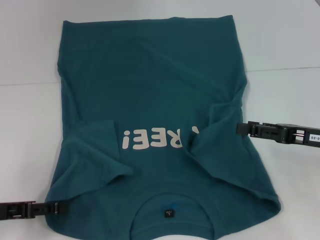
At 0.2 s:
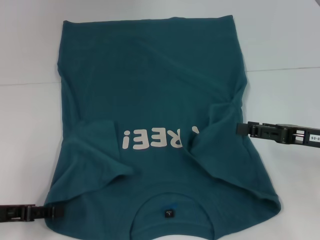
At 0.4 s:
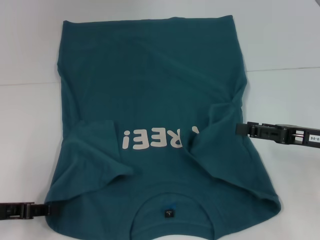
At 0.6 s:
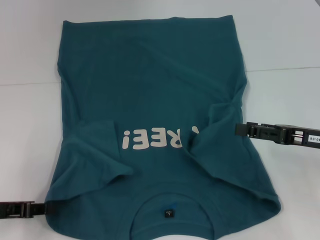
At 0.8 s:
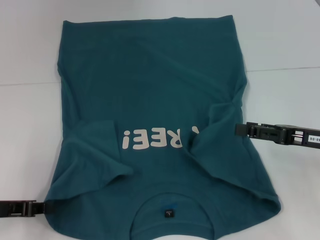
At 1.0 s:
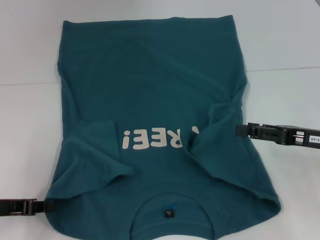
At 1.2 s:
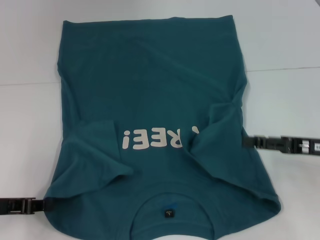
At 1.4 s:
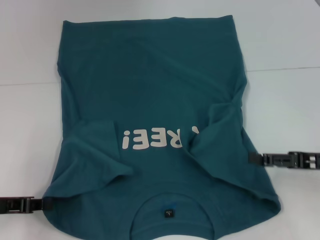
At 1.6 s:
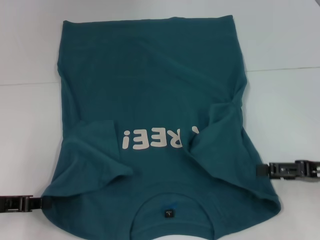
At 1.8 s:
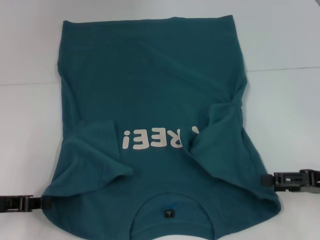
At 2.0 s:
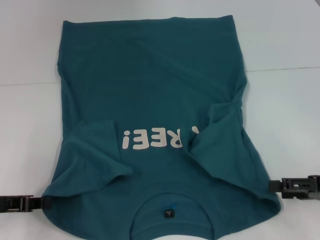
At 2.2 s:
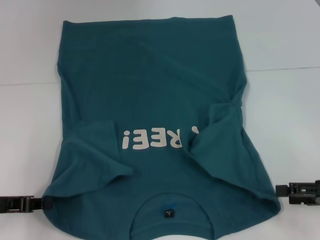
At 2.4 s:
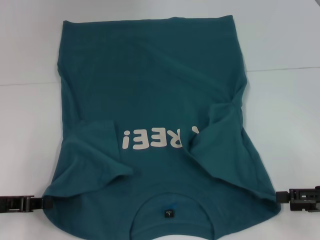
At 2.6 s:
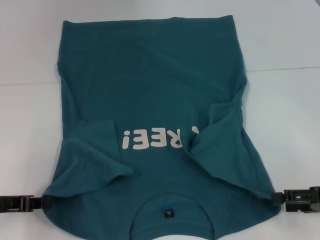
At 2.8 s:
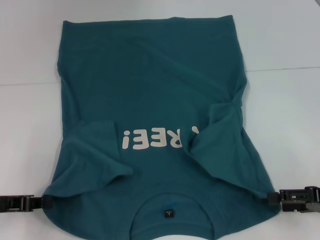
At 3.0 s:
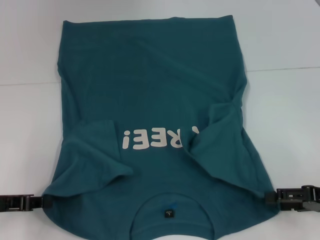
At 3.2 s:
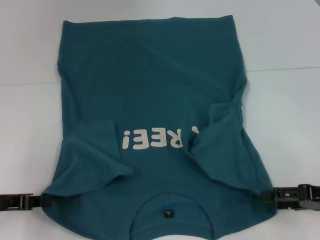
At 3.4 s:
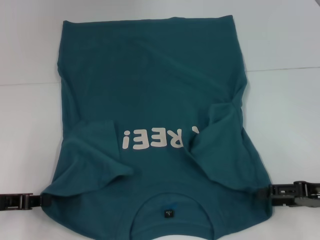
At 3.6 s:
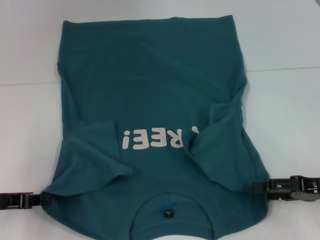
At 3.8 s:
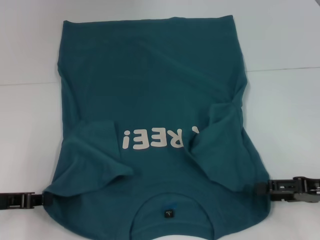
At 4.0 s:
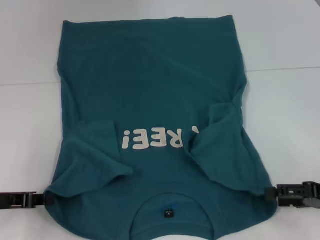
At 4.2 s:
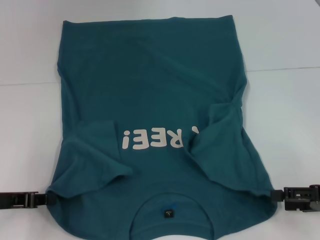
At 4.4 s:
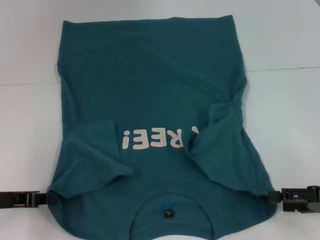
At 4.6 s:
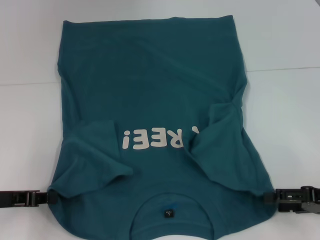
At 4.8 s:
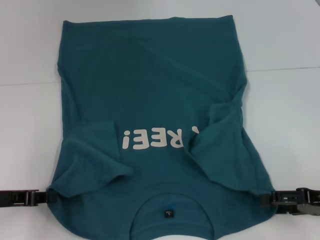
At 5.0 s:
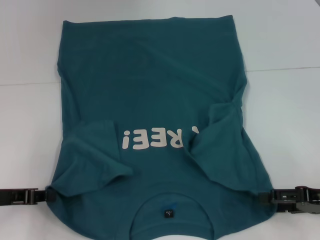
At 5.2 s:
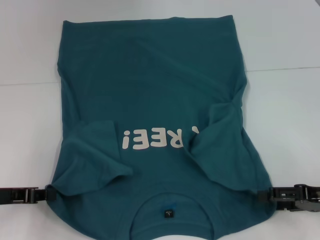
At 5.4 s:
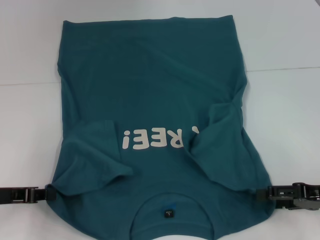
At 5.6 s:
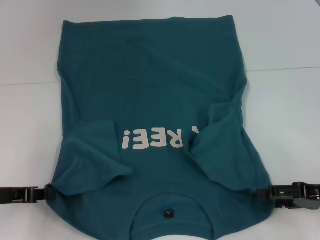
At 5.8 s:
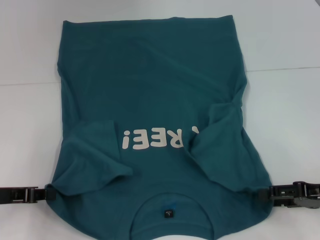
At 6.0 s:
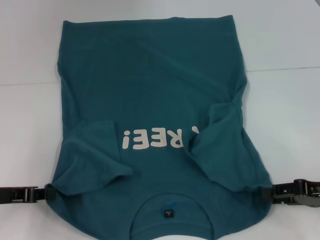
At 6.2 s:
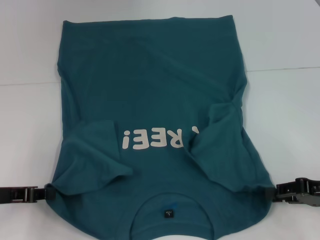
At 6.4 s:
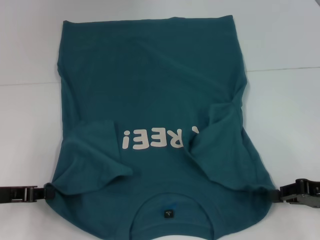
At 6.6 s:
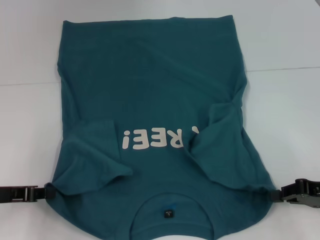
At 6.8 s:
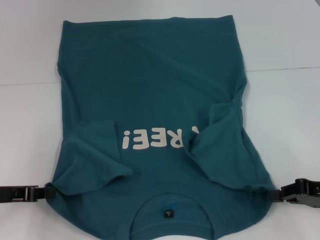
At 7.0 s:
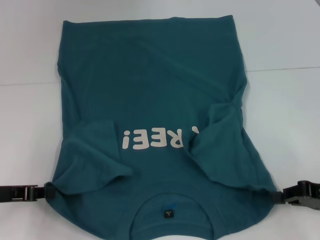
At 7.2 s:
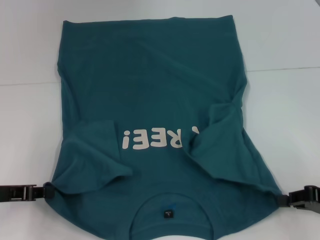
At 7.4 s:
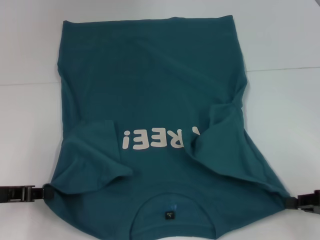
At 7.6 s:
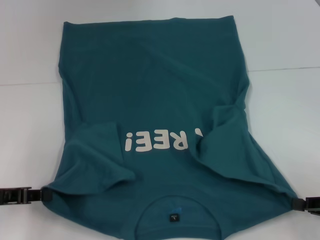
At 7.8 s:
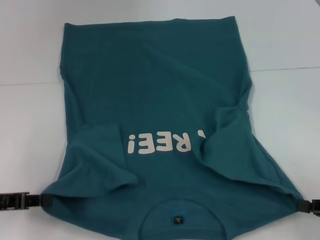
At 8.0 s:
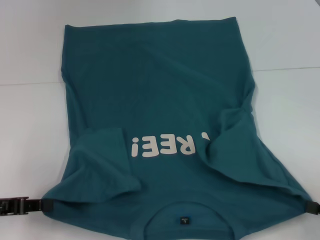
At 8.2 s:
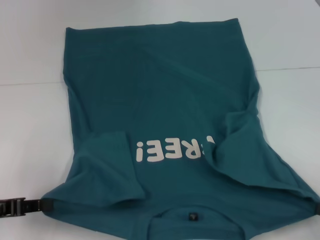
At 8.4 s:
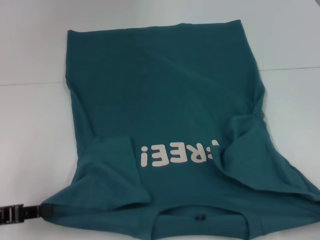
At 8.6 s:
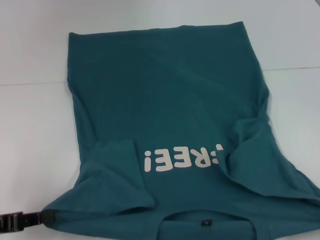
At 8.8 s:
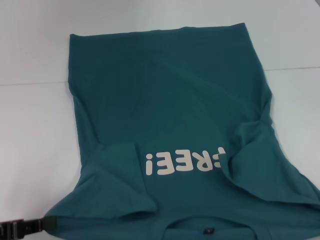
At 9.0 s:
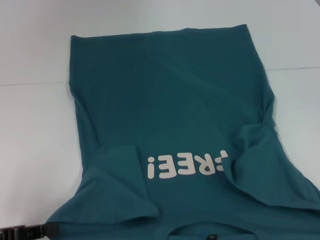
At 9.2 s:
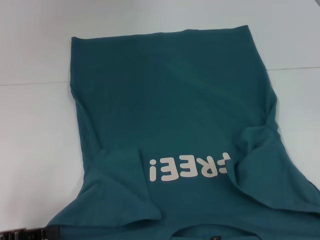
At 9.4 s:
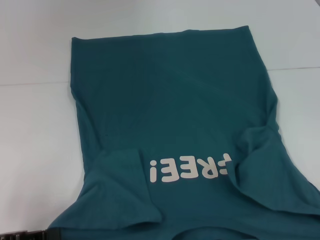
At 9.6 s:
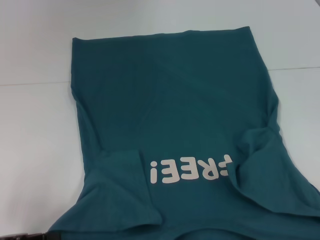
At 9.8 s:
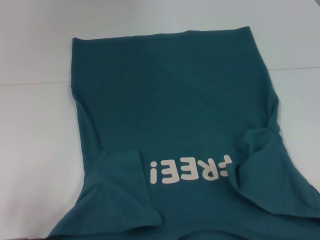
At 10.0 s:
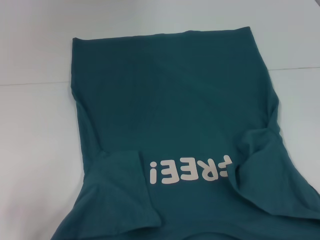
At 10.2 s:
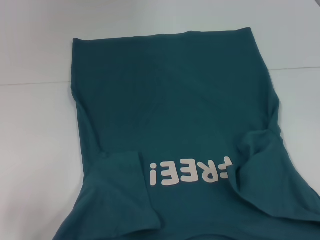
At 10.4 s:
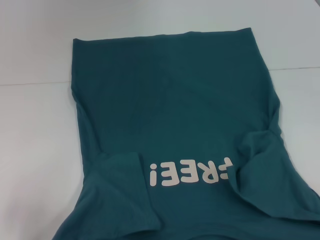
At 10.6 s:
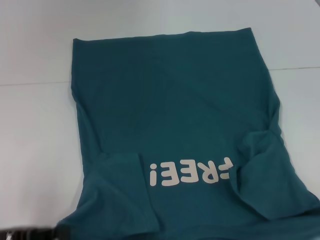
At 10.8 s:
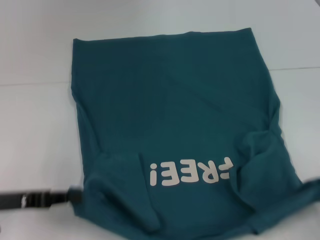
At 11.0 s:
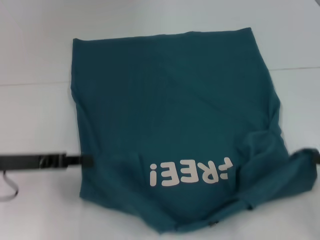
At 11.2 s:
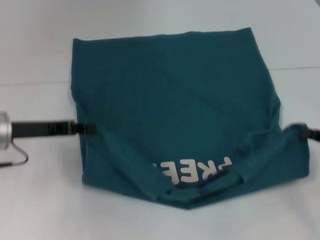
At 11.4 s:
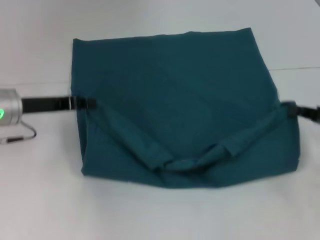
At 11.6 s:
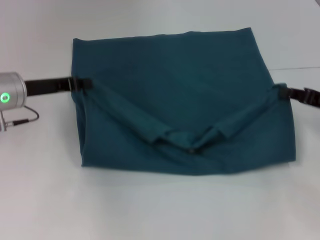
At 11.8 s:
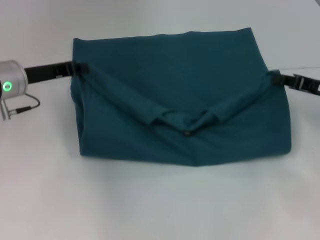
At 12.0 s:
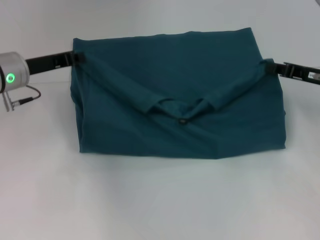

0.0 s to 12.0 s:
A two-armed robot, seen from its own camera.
Step, 1.6 to 6.6 s: Grab the bottom right corner with your right hand.
0.0 to 1.6 s: The left gripper closes its fingers.
1.6 to 6.0 s: The grippers stay close to where they were, moving slightly.
6.0 to 7.6 s: The right gripper changes place by some 5 cm, and closes its fingers.
7.6 to 9.0 s: The right gripper heads backward, covering approximately 10 cm. Meanwhile the left gripper moves backward, about 5 cm.
9.0 to 10.4 s: There are only small adjustments of the grippers.
10.4 to 12.0 s: Both grippers move forward, some 25 cm.

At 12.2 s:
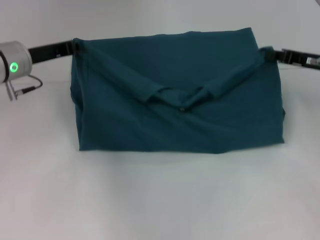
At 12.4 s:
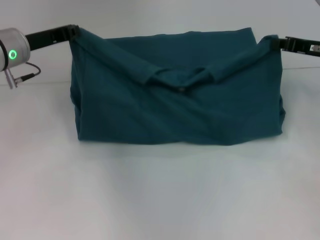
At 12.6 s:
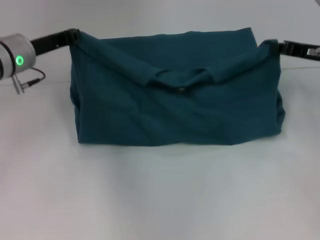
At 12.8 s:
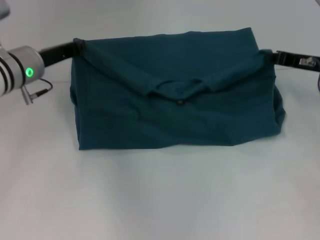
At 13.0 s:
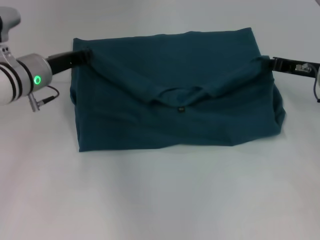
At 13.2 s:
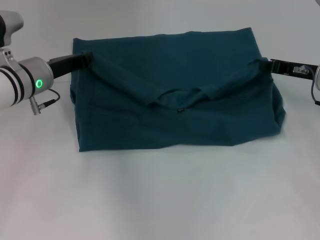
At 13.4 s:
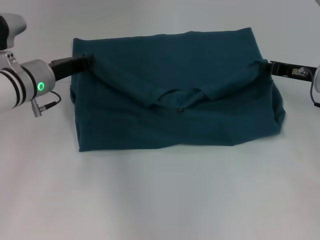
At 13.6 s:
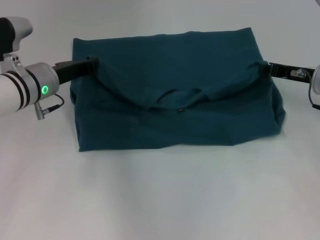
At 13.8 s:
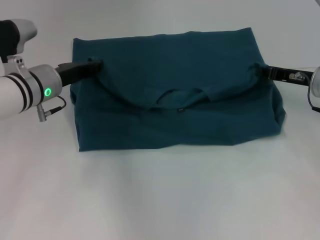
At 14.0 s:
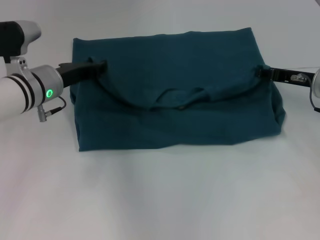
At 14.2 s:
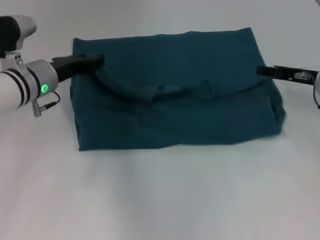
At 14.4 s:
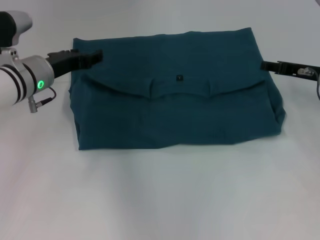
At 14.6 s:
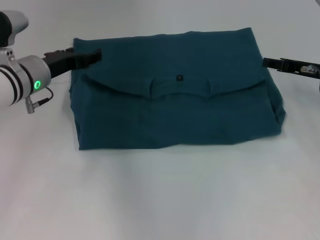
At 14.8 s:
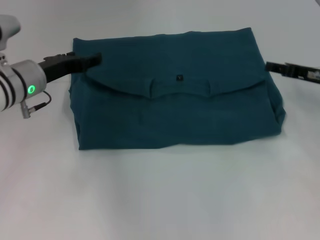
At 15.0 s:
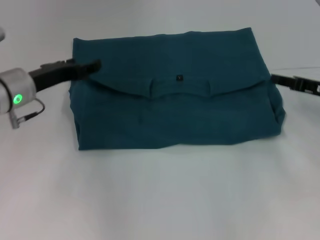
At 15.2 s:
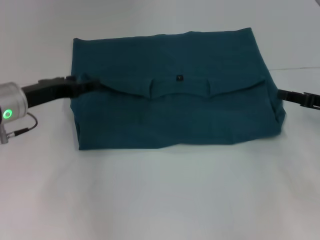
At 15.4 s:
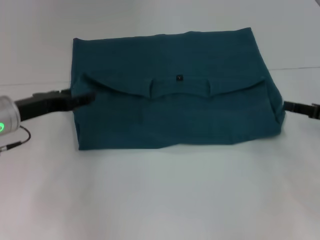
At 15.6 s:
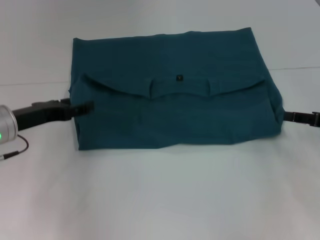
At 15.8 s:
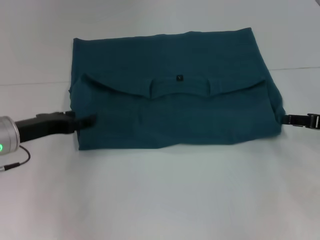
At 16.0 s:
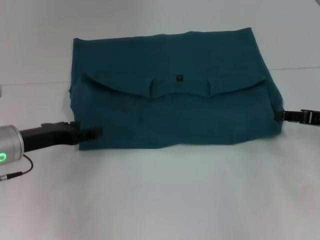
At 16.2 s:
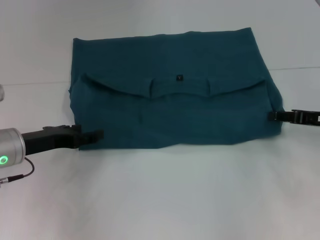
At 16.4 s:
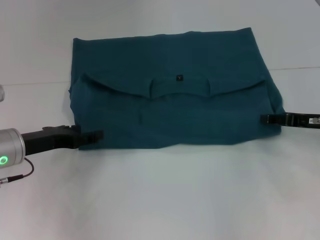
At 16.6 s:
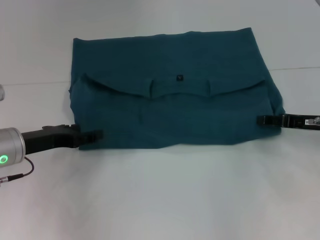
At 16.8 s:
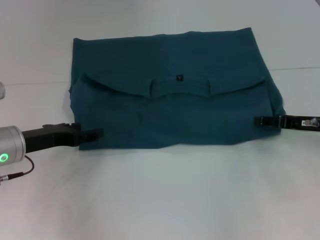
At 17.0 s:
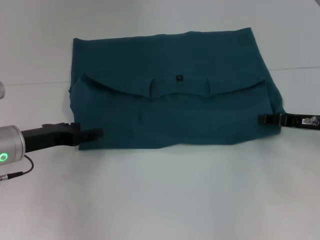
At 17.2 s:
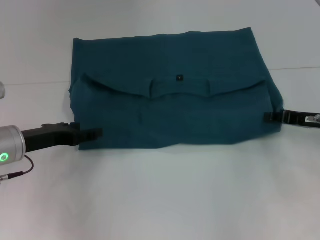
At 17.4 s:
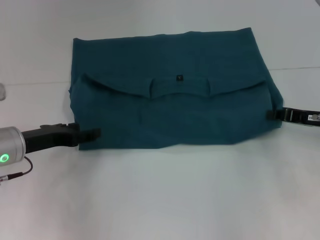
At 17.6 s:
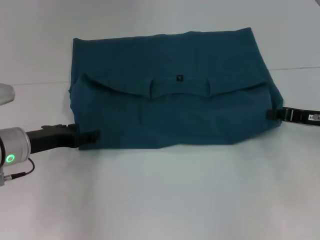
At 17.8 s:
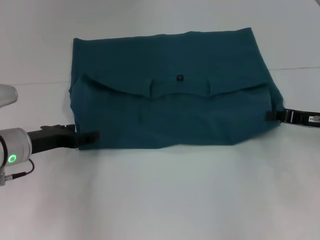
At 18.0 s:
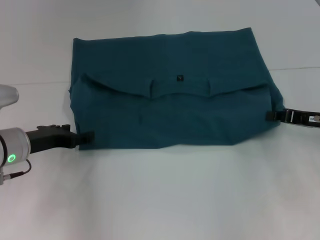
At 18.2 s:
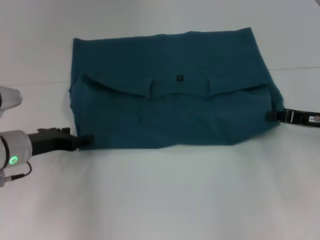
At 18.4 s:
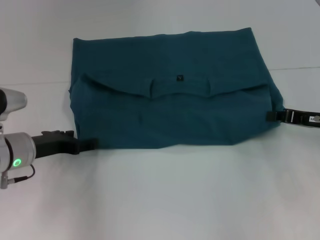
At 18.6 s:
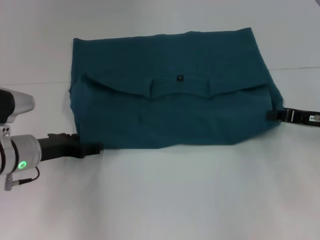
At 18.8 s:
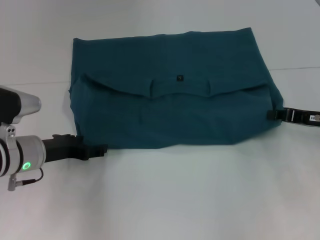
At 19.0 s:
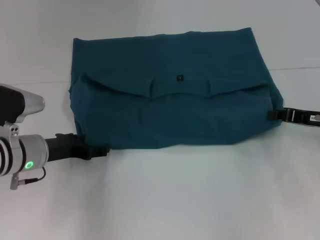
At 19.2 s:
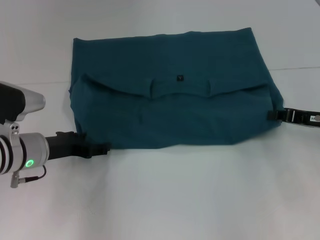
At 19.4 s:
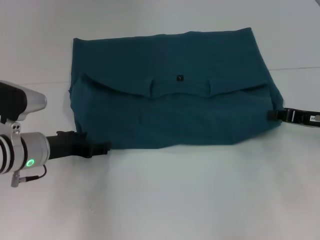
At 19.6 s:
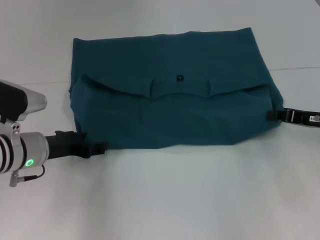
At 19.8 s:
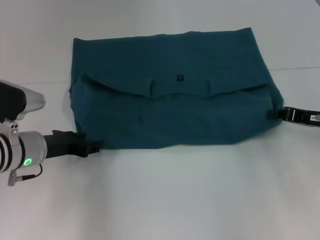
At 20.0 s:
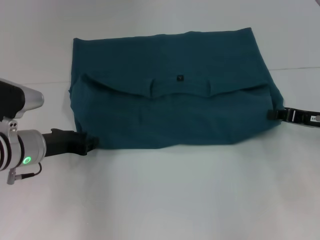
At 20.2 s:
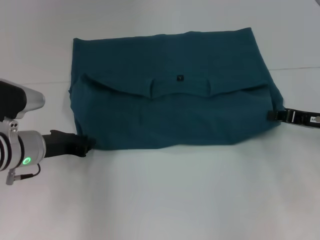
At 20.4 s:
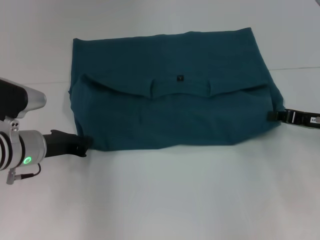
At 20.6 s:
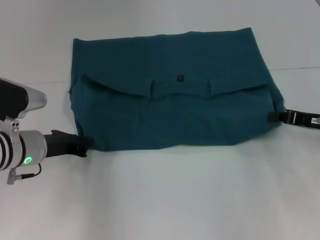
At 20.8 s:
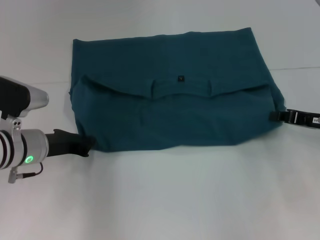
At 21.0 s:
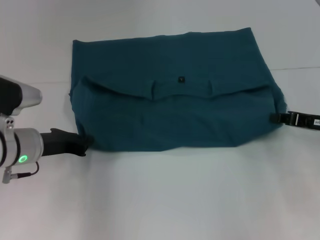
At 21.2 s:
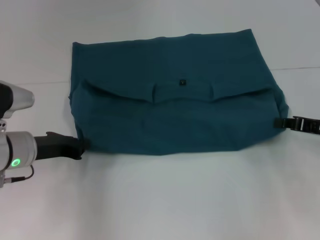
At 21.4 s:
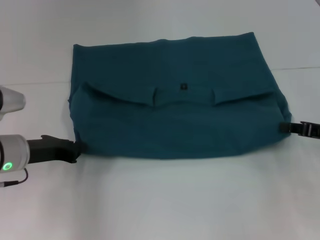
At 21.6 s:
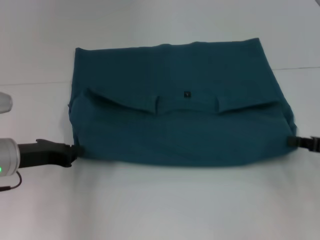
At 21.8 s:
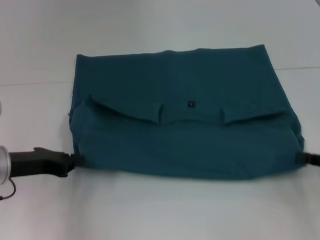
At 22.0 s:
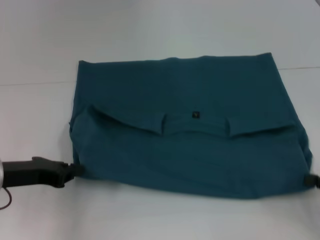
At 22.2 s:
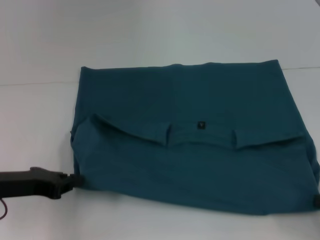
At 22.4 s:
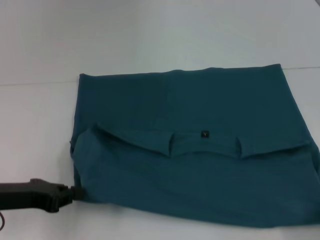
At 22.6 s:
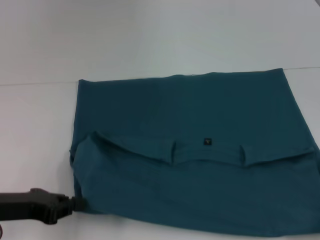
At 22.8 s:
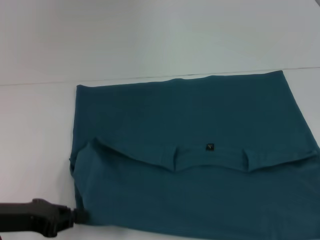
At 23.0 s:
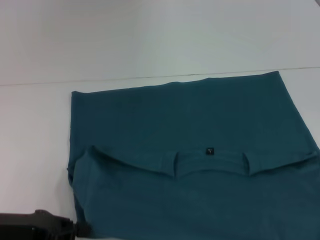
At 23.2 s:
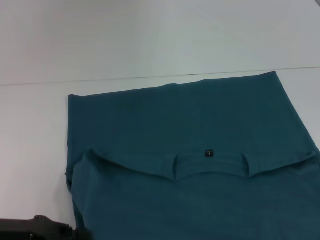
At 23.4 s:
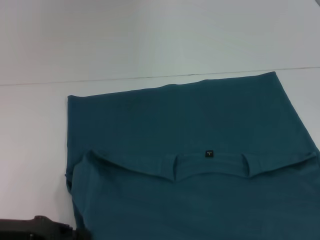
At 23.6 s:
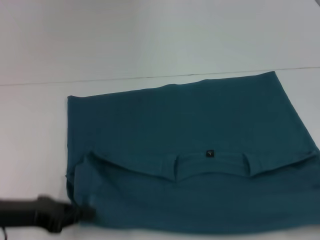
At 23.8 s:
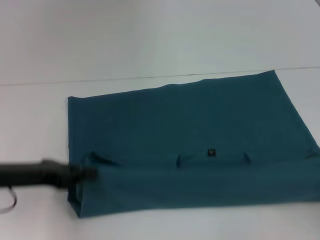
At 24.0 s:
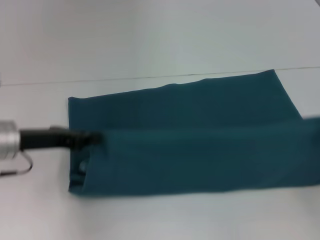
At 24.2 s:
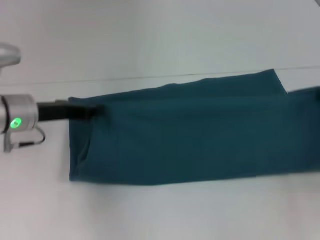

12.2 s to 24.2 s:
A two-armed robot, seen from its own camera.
Step, 12.2 to 14.4 s: Fold the clothes to the left.
Step, 12.2 to 14.4 s: Fold the clothes to the right.
Step, 14.6 to 23.4 s: Pull the clothes with your left hand.
Step, 14.6 to 23.4 s: Pull the clothes with your right hand.
12.2 to 13.8 s: The left gripper shifts by some 5 cm.
13.8 to 15.2 s: The right gripper travels backward and to the right by roughly 10 cm, and opens. Meanwhile the left gripper ends up approximately 5 cm from where it was, and opens up.
15.2 to 16.6 s: The left gripper moves about 5 cm.
16.6 to 18.2 s: The right gripper closes its fingers.
18.2 to 19.8 s: The grippers make only small movements.
19.8 to 21.2 s: The left gripper closes its fingers.
21.2 to 22.6 s: The right gripper heads backward, covering about 20 cm. The left gripper goes some 10 cm backward.
22.6 to 24.2 s: The right gripper shifts approximately 20 cm forward. Meanwhile the left gripper goes about 15 cm forward and to the right.
